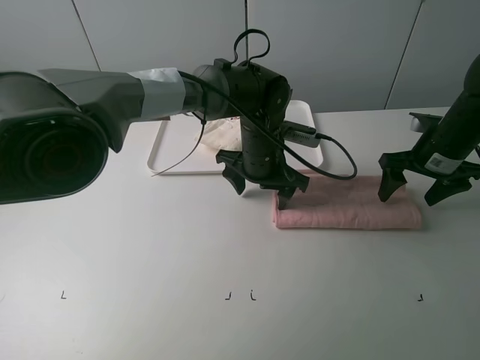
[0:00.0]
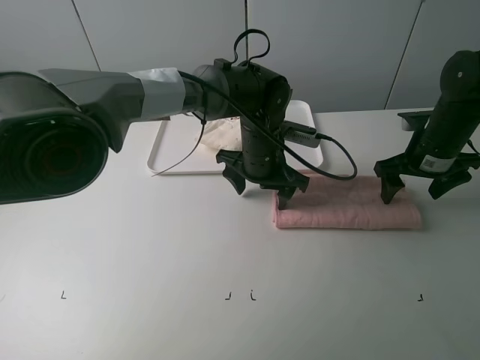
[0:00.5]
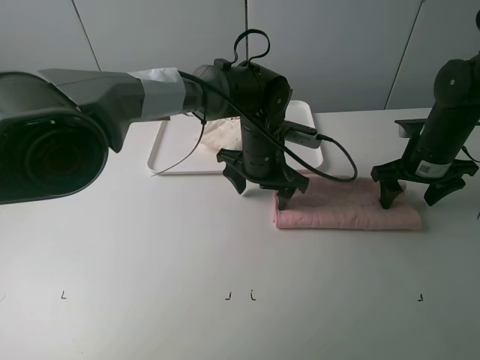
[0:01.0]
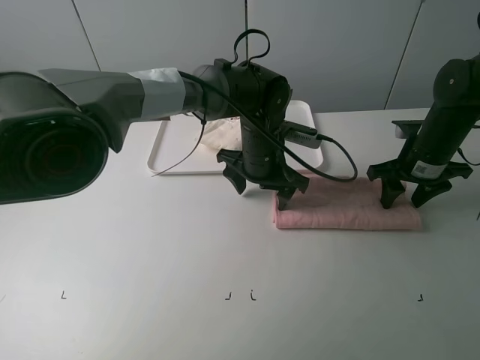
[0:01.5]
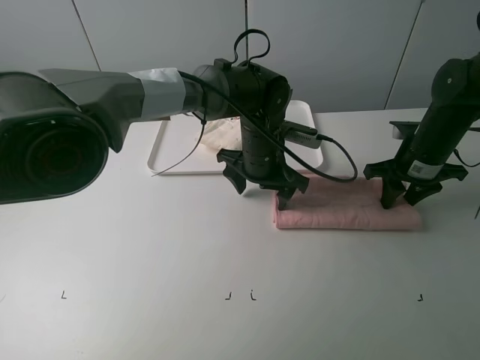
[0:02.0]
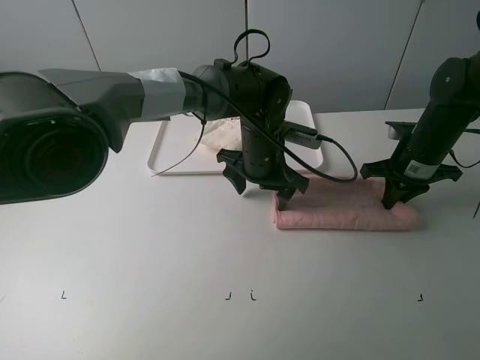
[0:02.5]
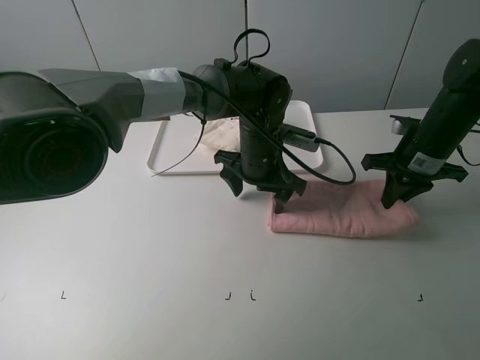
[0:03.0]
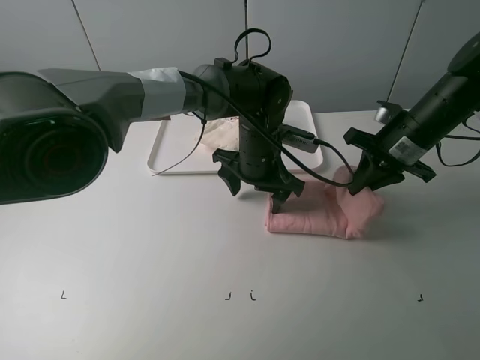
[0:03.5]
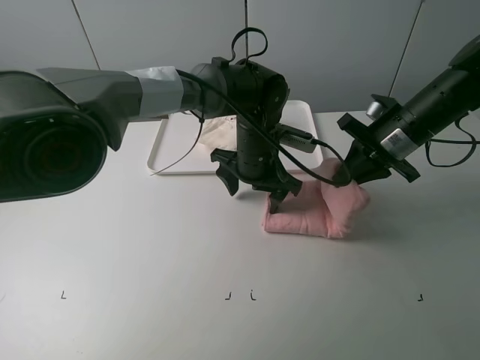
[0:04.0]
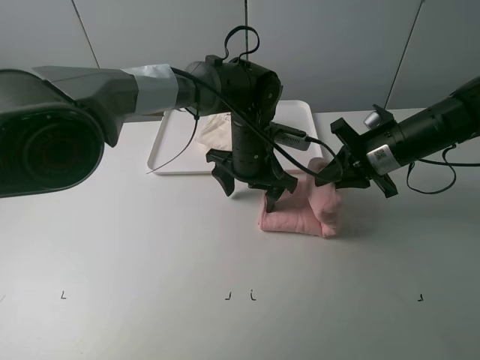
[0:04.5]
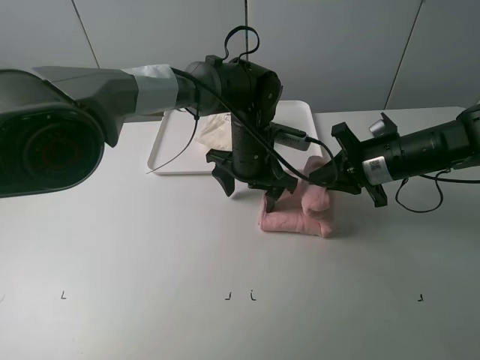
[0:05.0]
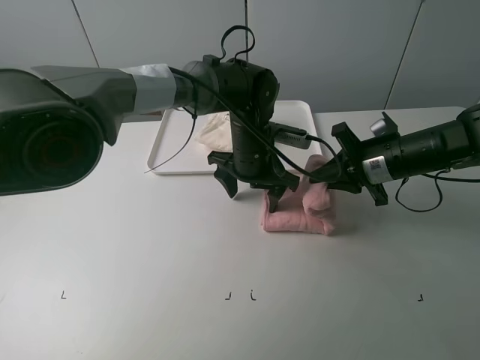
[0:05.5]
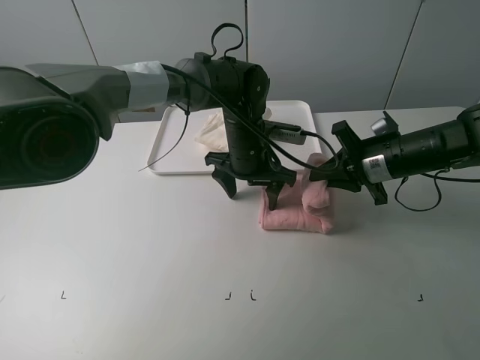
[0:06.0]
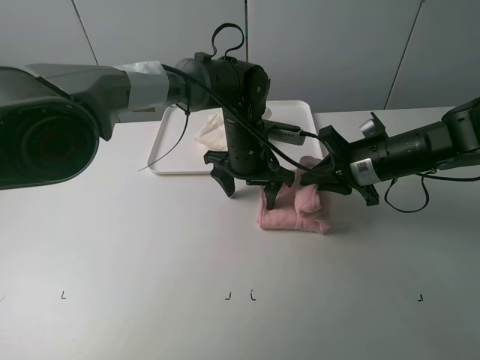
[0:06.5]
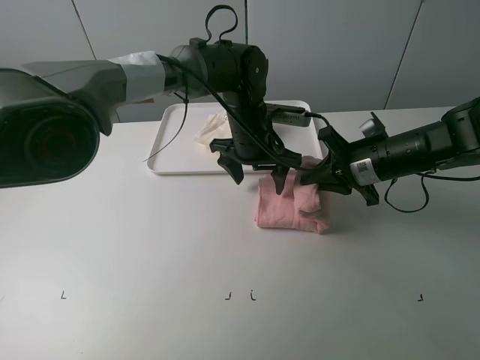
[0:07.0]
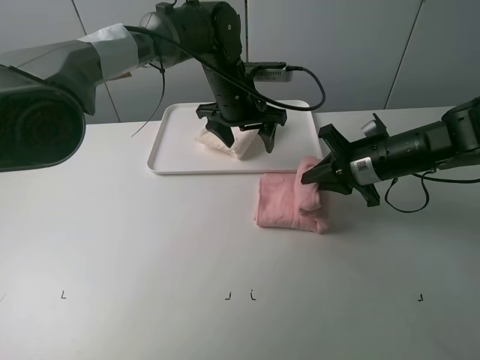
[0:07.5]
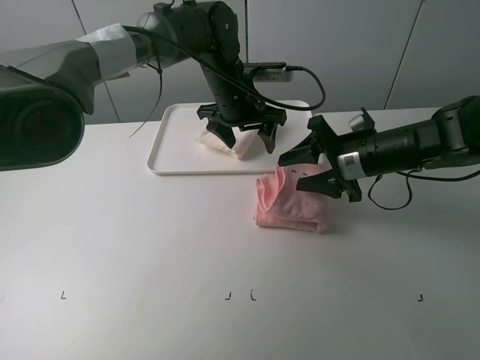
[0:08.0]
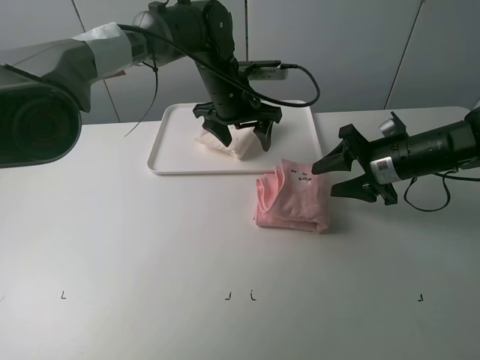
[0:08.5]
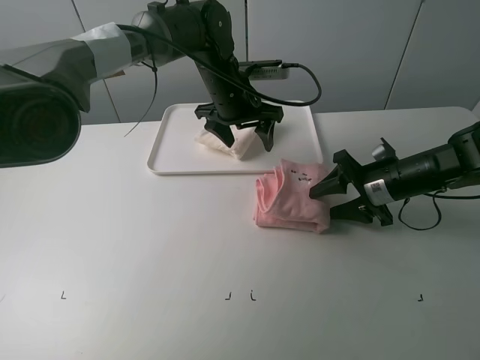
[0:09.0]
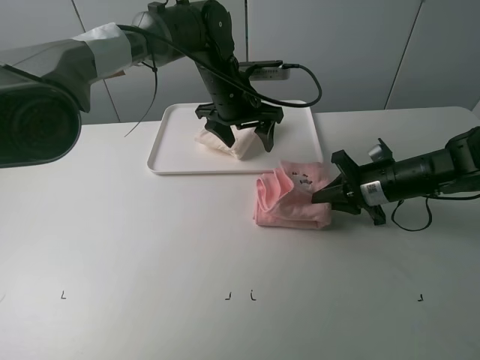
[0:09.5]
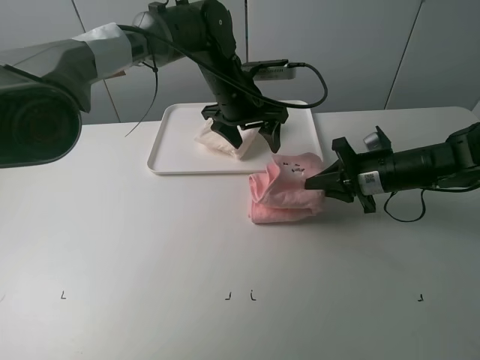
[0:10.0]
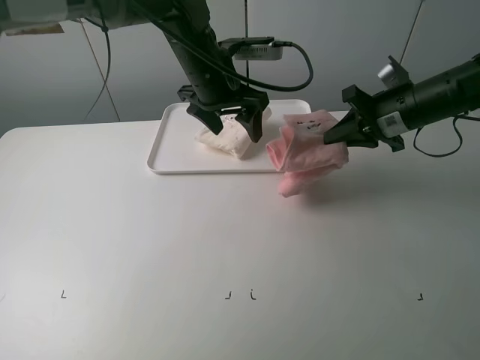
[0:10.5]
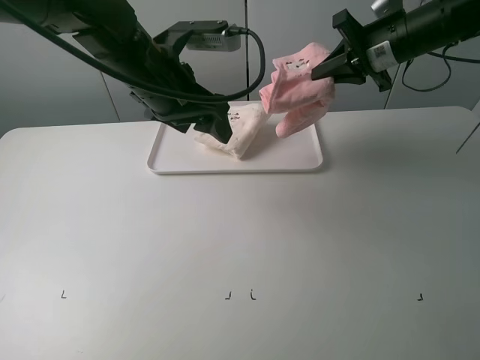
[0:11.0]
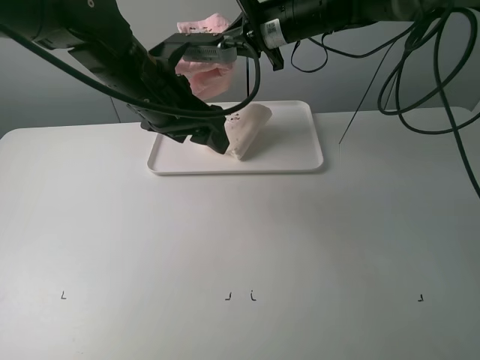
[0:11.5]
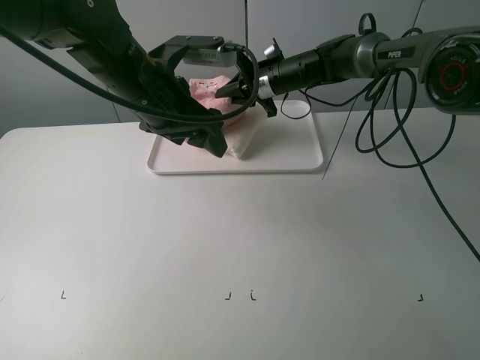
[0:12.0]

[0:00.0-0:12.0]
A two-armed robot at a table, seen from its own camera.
Task of the whole recording: fold one of the towels by two grippers and place it on the tray,then fold another towel by two grippers and place it on the folded towel.
Step, 0:00.0 to 0:02.0: Grasp the pink towel with the right gripper.
Step, 0:02.5 to 0:08.0: Fold the pink towel from right to left with right gripper.
Step, 0:08.5 to 0:09.5: Grasp the pink towel with the right gripper.
0:00.0 to 0:02.0: The right gripper closes its fingers.
0:02.0 to 0:04.0: The right gripper goes some 10 cm upward and to the left.
0:06.0 to 0:08.0: The right gripper opens; the left gripper goes approximately 10 cm upward and forward.
0:08.0 to 0:10.0: The right gripper shifts by some 5 cm, and closes up.
0:10.0 to 0:12.0: The left gripper shifts some 15 cm backward, to the left and upward; the right gripper heads forward and to the left, covering some 25 cm.

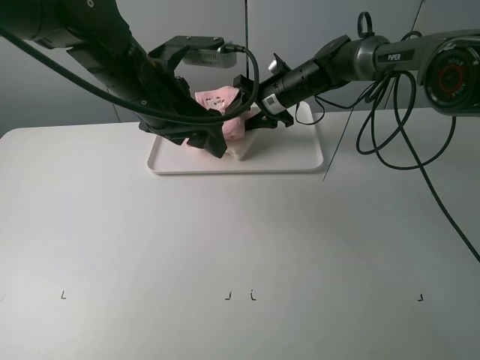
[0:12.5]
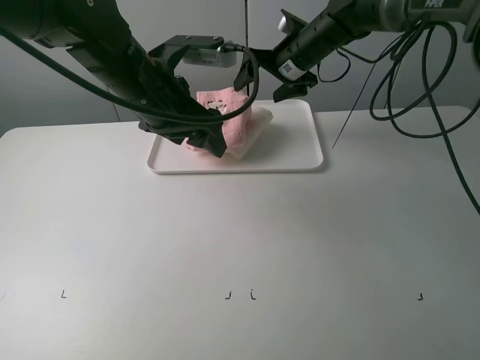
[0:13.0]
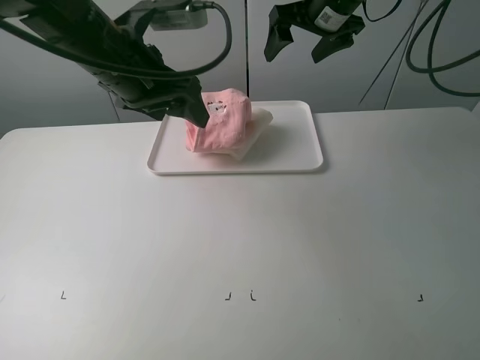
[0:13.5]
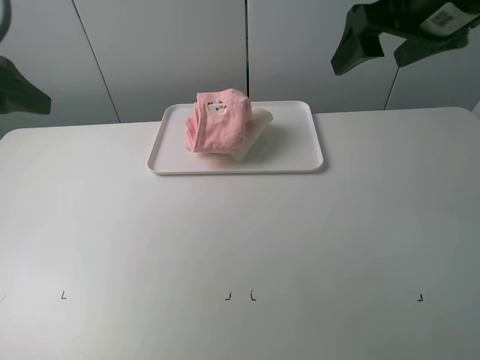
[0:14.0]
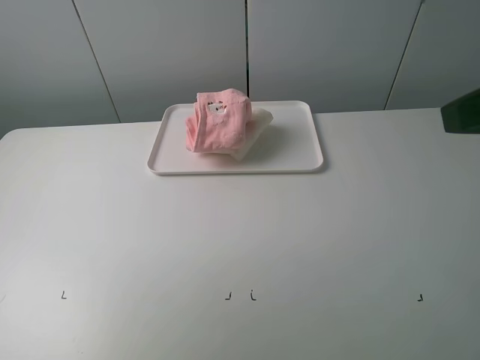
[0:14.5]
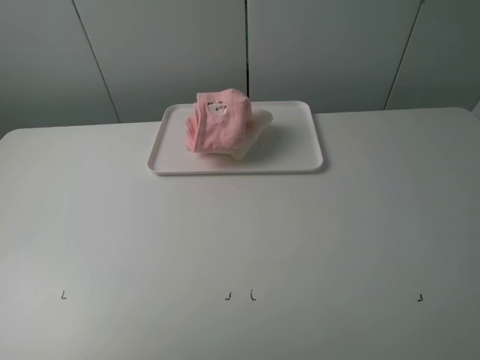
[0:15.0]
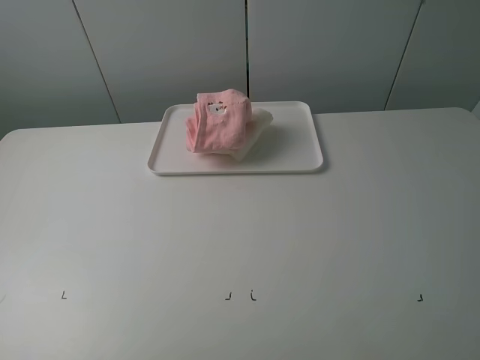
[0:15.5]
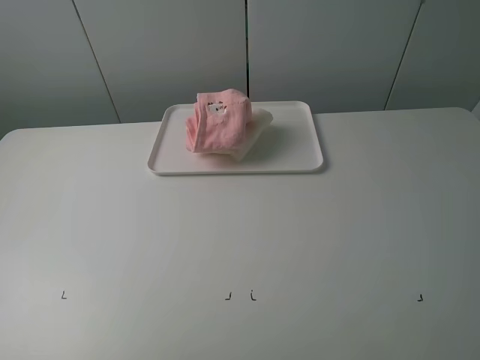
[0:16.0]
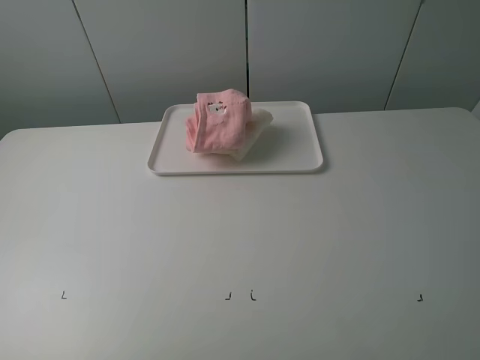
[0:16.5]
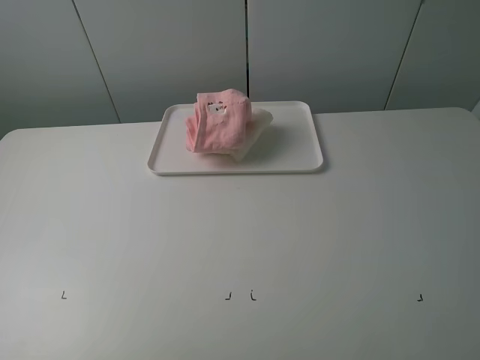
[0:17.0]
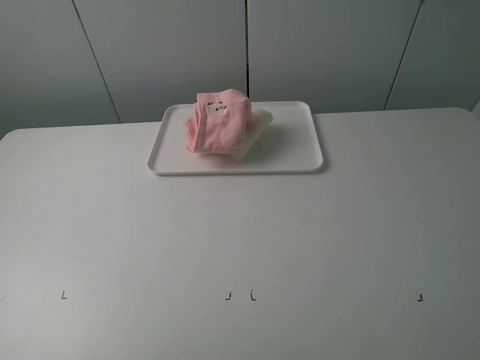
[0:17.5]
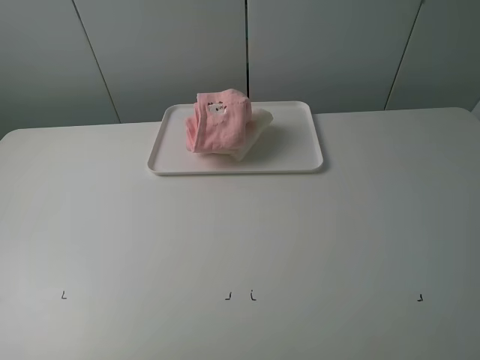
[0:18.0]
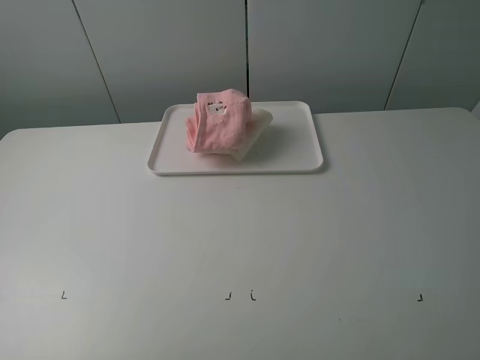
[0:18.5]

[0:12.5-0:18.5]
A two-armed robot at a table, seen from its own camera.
Task of the whole recording: fold one of the towels by two grippers and place it on the tray,then fold another towel by two grippers and place it on the folded towel.
0:12.5 to 0:14.5: The left gripper moves to the left, backward and upward, approximately 30 cm, while the right gripper heads backward, upward and to the right, covering approximately 50 cm.
0:14.5 to 0:16.5: The left gripper is displaced backward by roughly 15 cm, while the right gripper shifts roughly 15 cm backward and downward.
